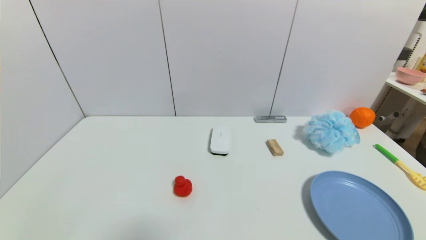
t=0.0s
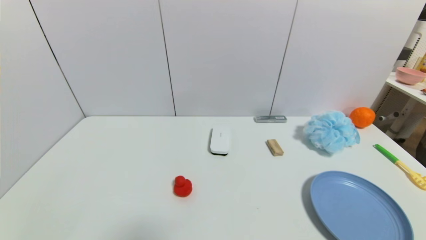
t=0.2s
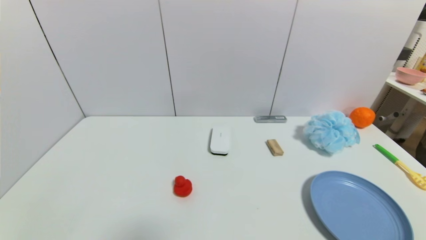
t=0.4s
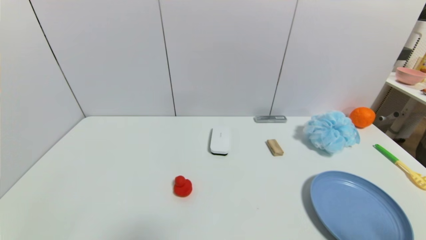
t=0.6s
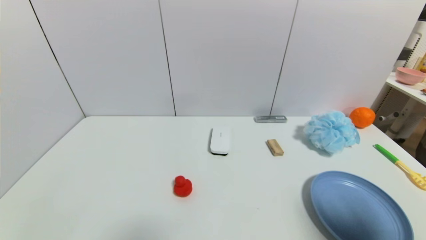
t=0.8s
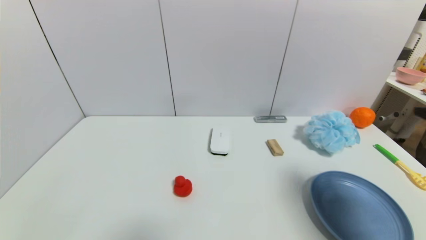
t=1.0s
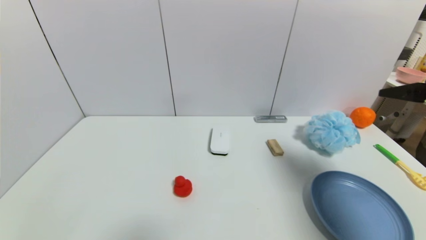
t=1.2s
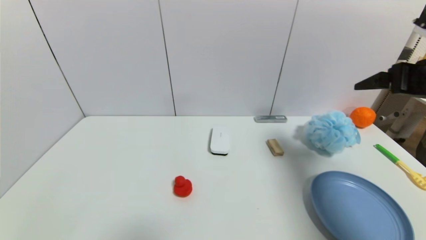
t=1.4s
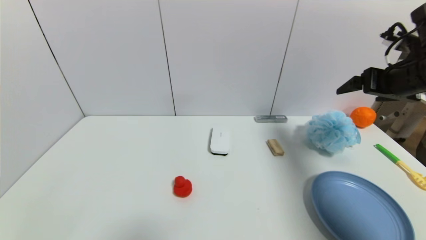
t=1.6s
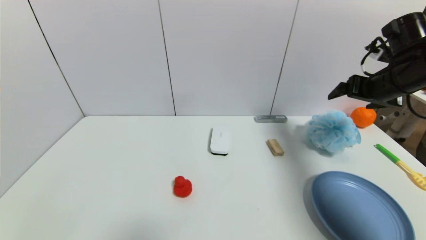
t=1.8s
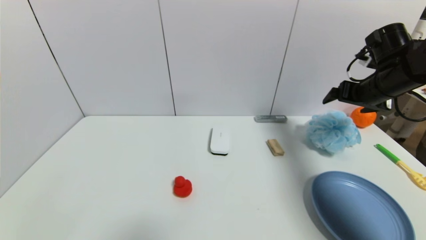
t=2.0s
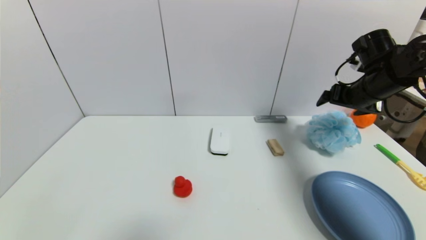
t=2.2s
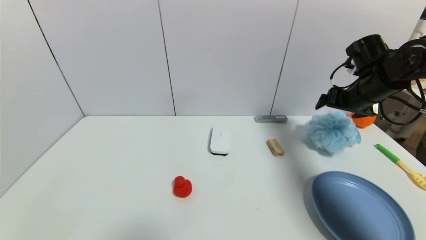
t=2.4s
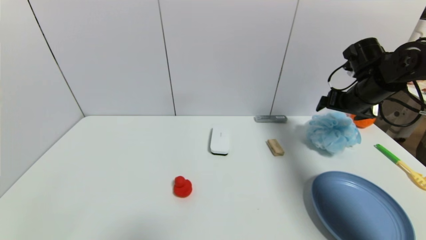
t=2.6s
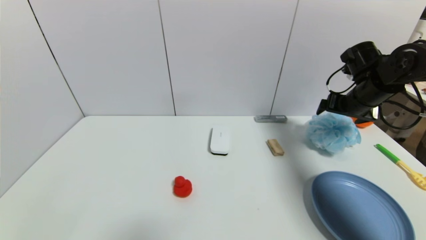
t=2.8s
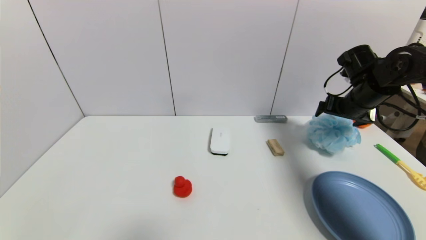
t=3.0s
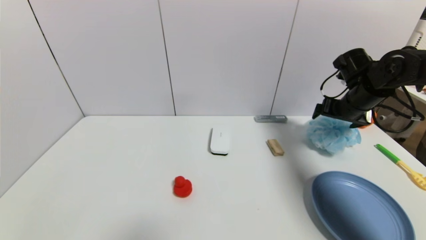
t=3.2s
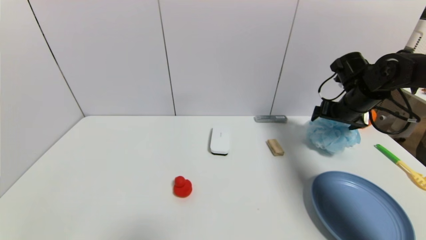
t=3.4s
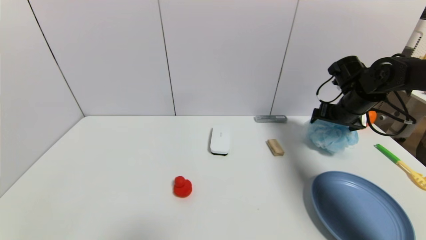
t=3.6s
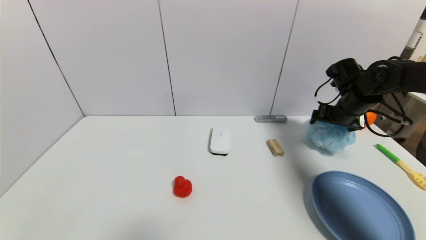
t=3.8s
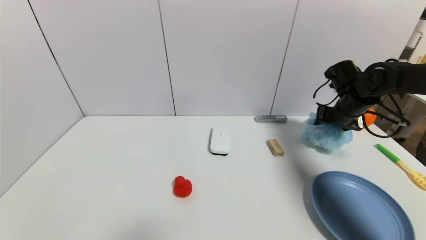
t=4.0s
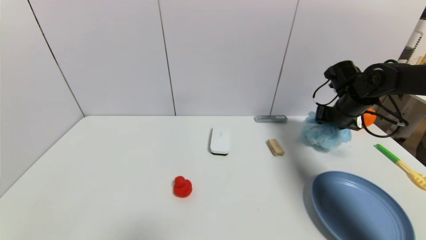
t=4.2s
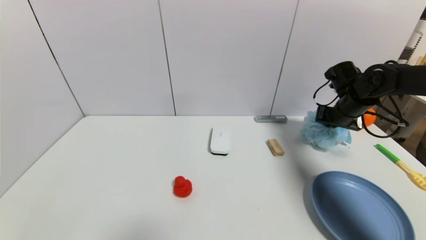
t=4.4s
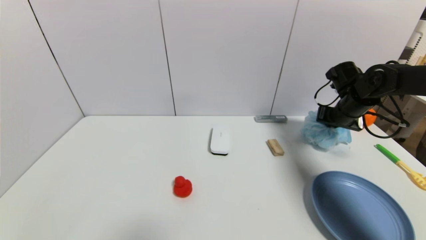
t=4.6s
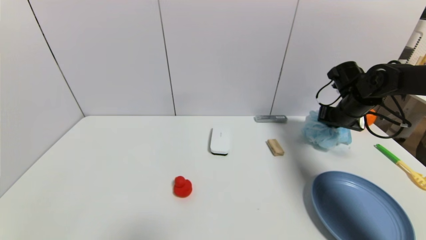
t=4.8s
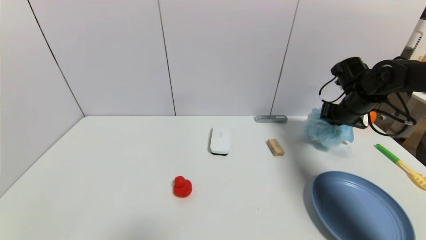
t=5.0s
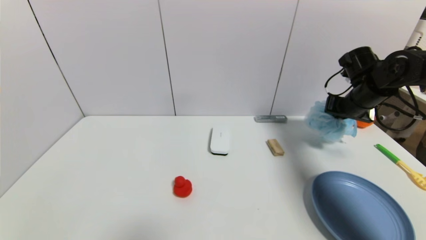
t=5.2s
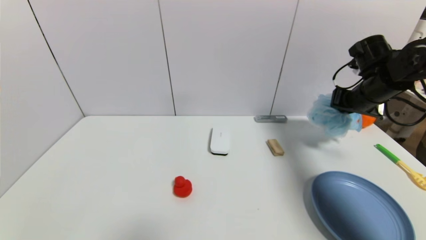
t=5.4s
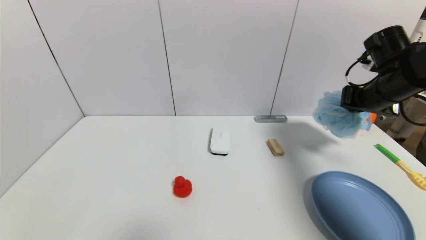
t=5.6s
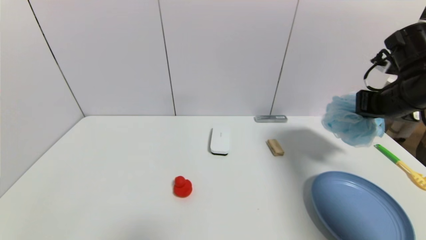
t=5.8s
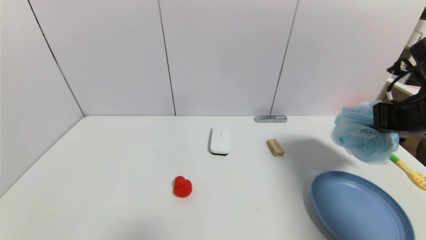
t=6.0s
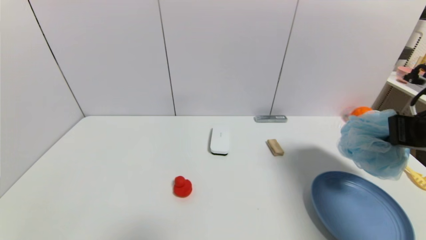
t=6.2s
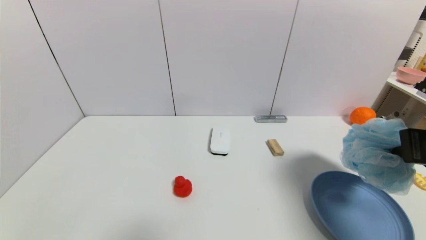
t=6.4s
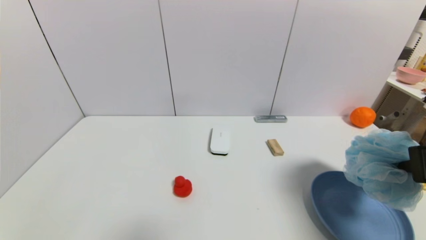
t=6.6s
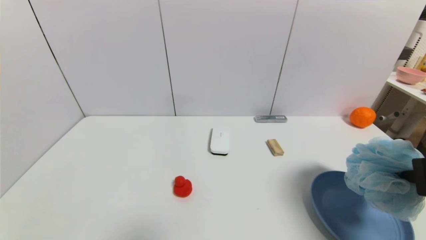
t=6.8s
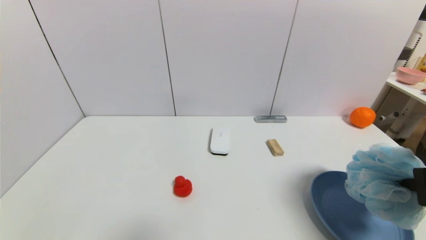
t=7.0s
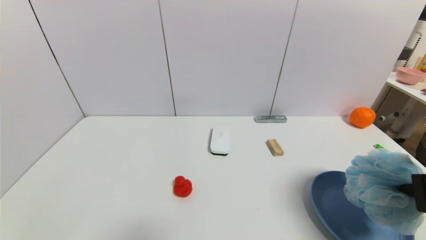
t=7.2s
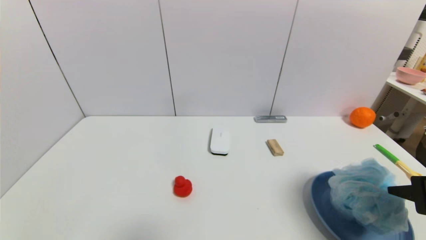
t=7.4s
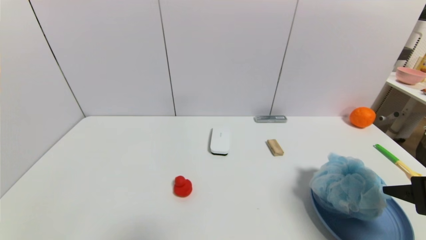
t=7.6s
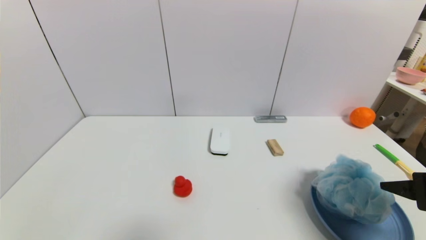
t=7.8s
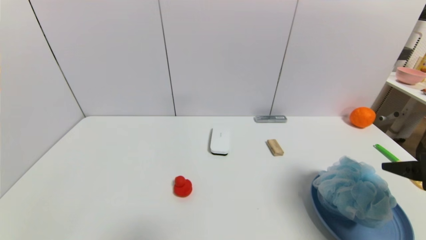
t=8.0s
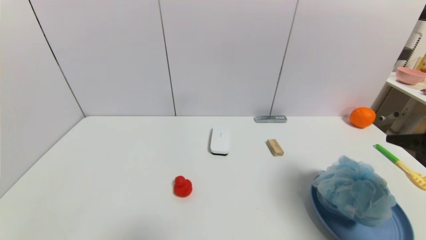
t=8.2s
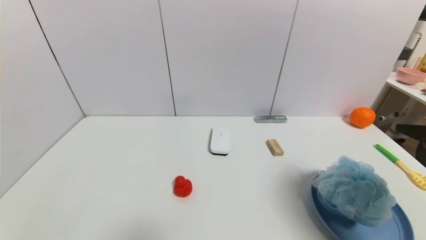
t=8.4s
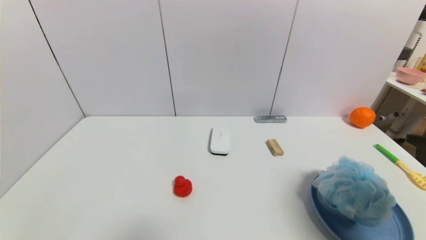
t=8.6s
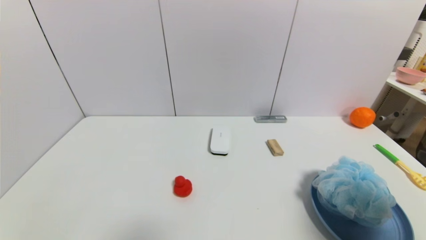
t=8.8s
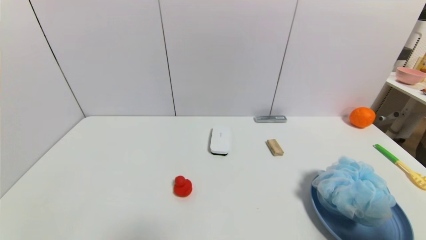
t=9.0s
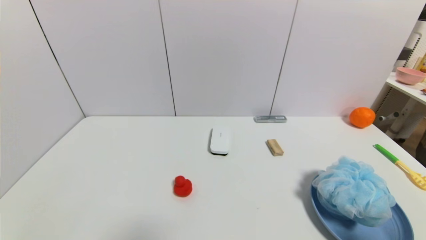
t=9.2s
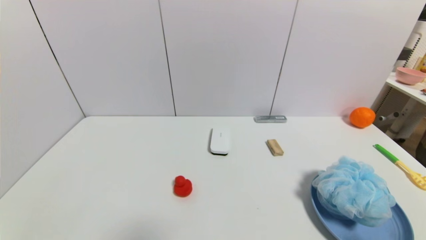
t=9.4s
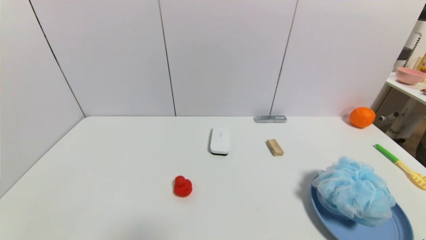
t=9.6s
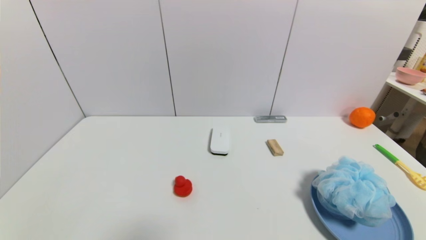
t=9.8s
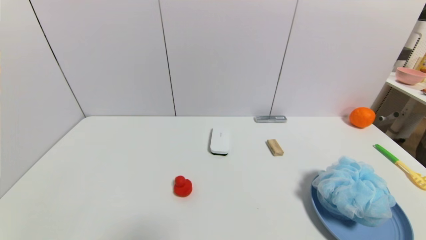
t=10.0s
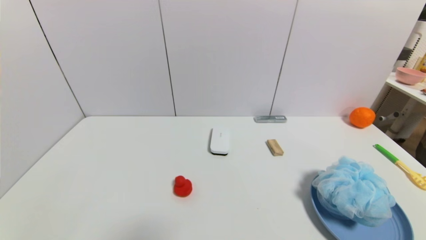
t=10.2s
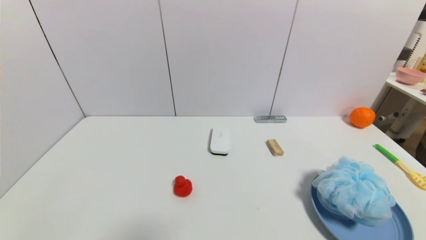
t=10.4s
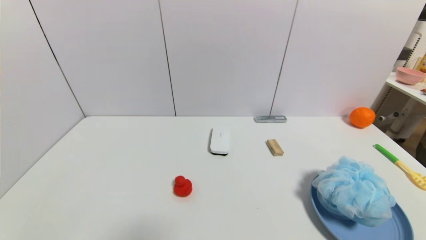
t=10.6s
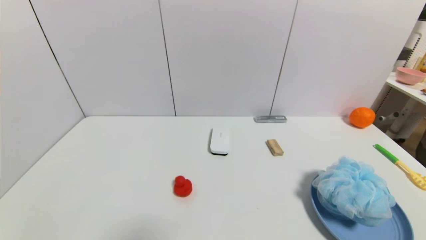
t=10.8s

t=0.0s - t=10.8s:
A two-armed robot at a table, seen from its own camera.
Task of the whole recording: use a gripper to pick the target object and place on the blue plate.
Step, t=0.0s - t=4.8s: Grasp the shower sphere with the right gripper.
Step, t=5.0s - t=8.2s: Place the shower sphere on the blue plate with the right gripper.
t=0.0s - t=1.6s: The right gripper is displaced forward and upward by roughly 40 cm.
t=1.6s - t=3.0s: The right gripper goes about 10 cm forward and downward.
t=3.0s - t=4.6s: The right gripper closes.
t=4.6s - t=6.2s: The right gripper moves backward, roughly 20 cm.
t=6.2s - t=7.8s: The right gripper travels backward by approximately 5 cm, and opens up.
t=7.8s - t=9.2s: The right gripper moves backward and downward, approximately 10 cm.
